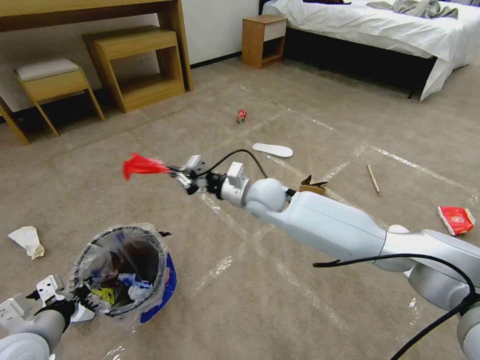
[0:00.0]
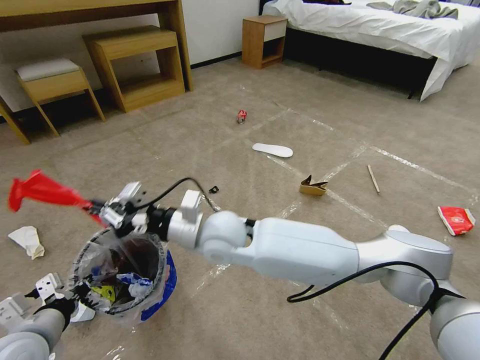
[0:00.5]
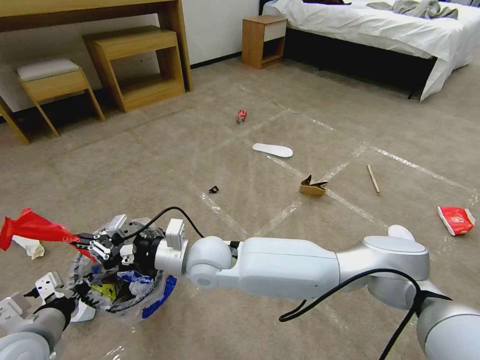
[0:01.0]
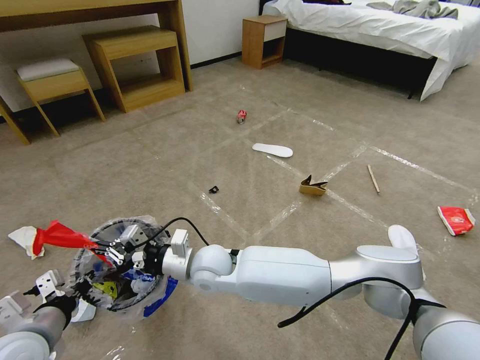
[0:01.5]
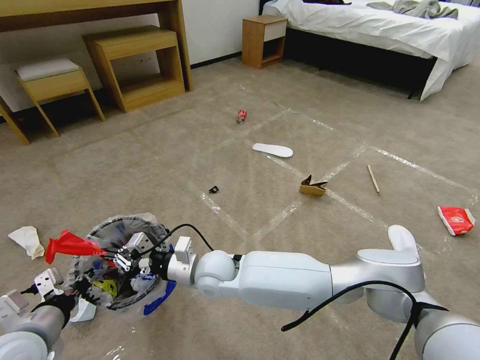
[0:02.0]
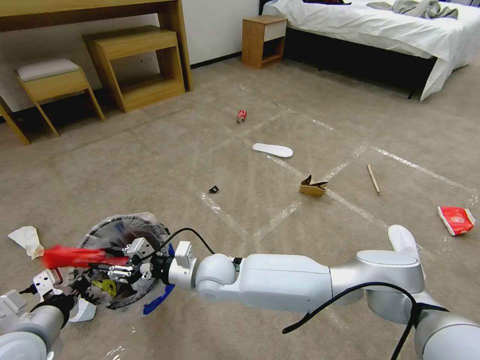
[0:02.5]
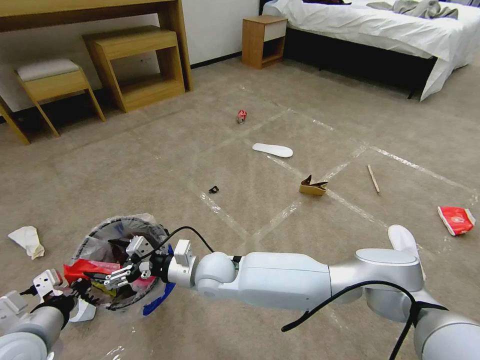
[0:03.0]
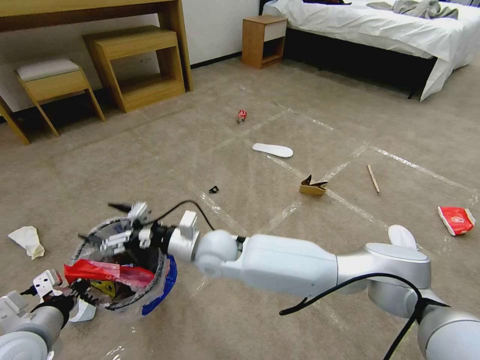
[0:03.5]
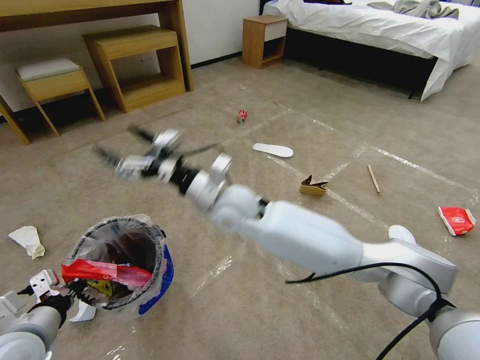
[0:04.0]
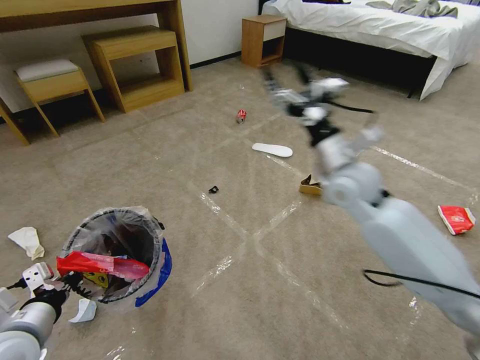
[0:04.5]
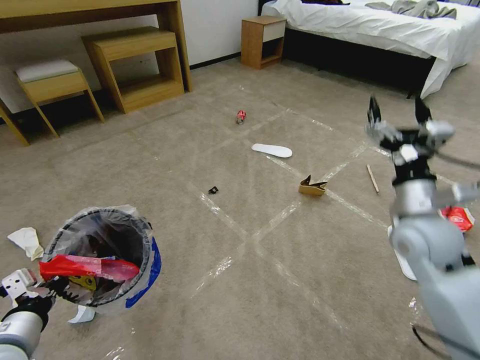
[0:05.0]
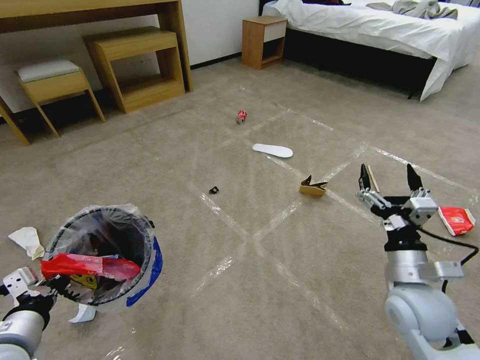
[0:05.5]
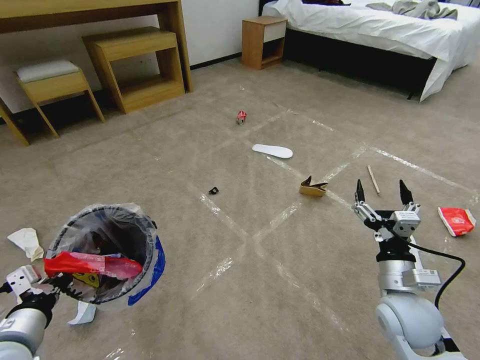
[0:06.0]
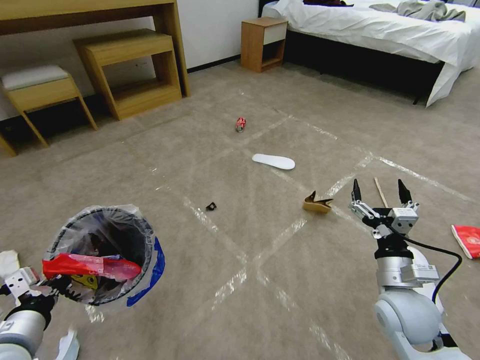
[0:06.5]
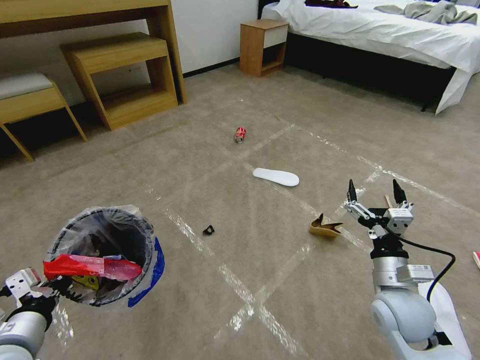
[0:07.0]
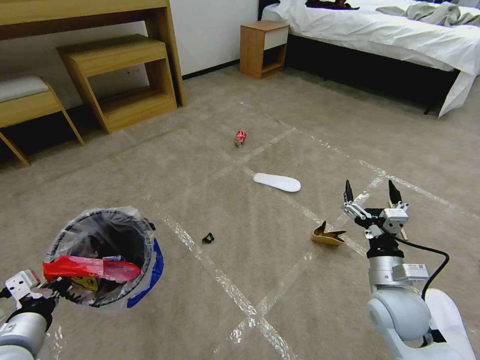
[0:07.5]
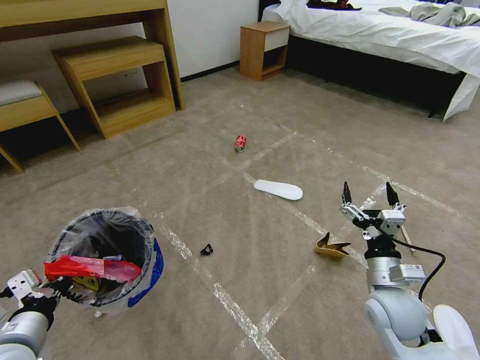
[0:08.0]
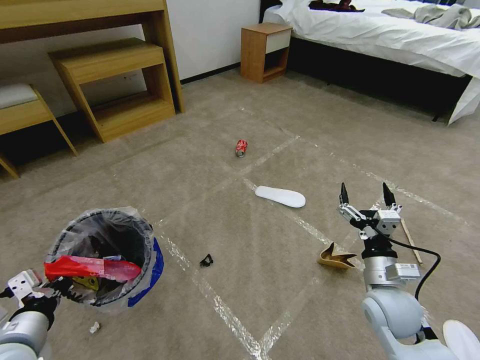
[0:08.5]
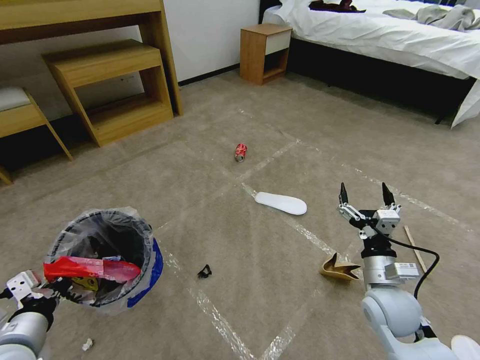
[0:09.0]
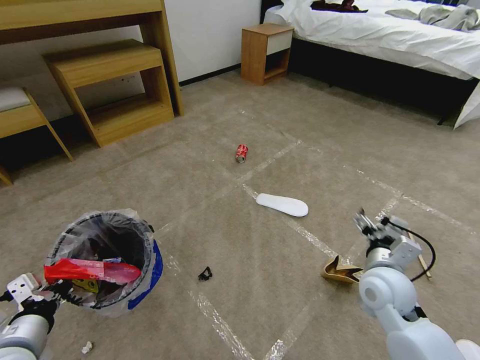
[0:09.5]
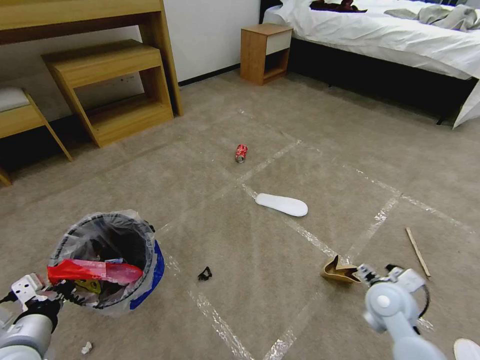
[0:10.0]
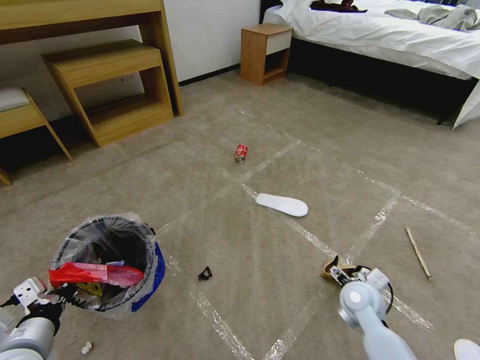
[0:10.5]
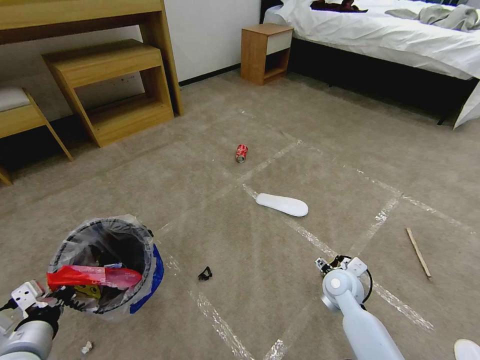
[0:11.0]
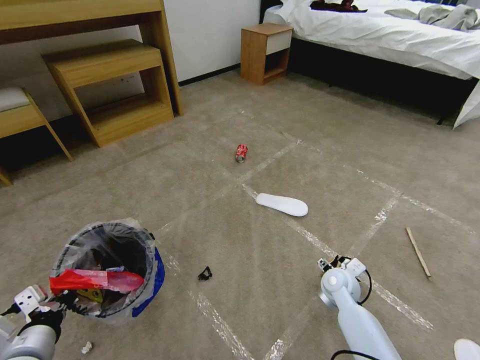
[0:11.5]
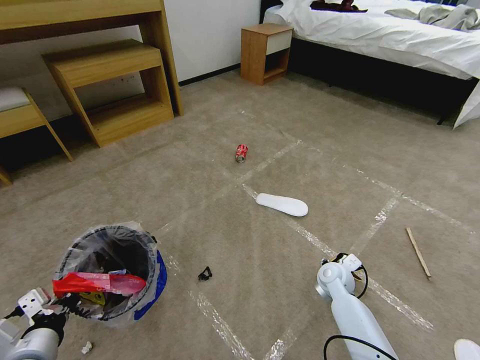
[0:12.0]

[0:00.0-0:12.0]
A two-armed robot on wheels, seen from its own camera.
Task of the whole recording: Pick up the trash bin and place the garbage on the floor into it.
0:00.0 to 0:02.0: The right gripper is displaced backward, downward and to the left by roughly 20 cm.
0:02.0 to 0:04.0: The right gripper is displaced upward and forward by about 15 cm, and opens its fingers.
0:04.0 to 0:06.0: The right gripper shifts roughly 35 cm to the right and backward.
0:10.0 to 0:12.0: The right gripper is displaced forward, downward and to the left by some 15 cm.

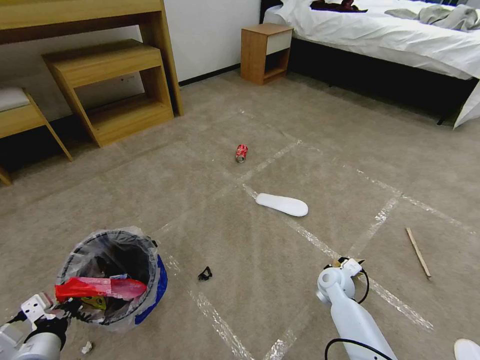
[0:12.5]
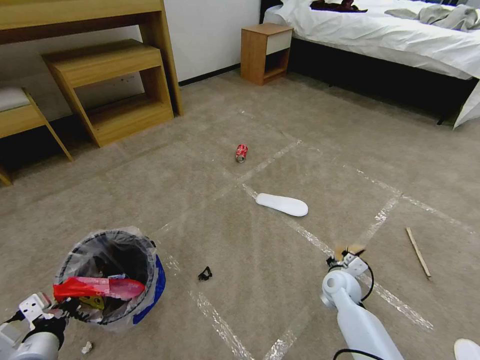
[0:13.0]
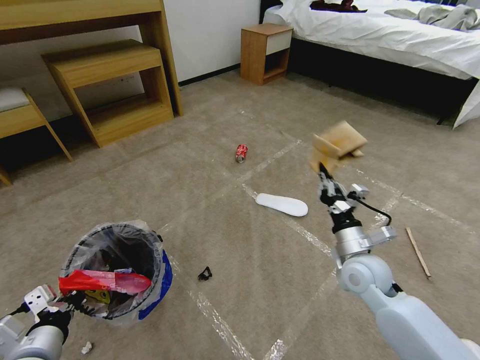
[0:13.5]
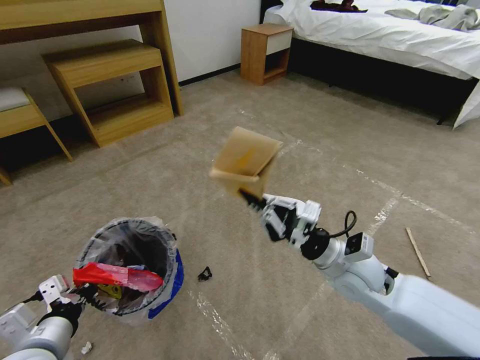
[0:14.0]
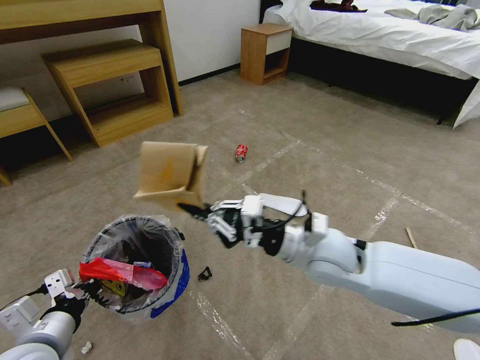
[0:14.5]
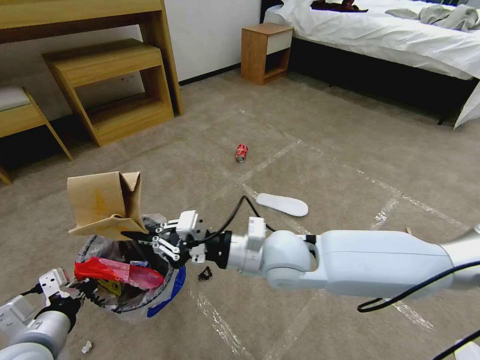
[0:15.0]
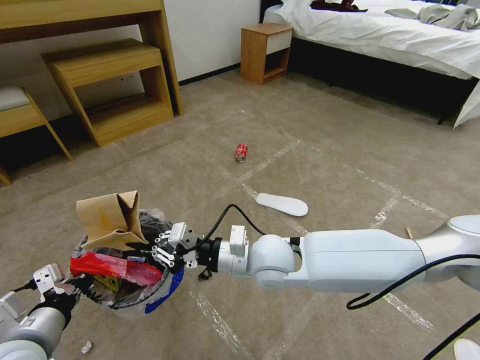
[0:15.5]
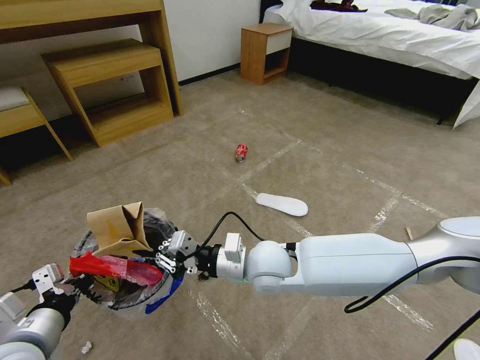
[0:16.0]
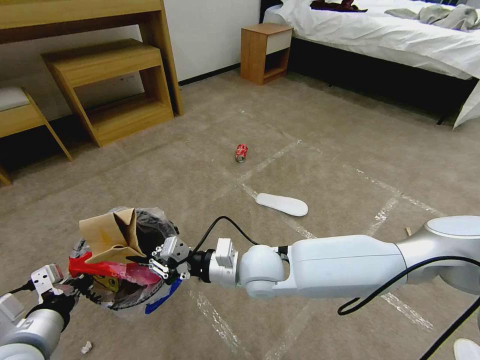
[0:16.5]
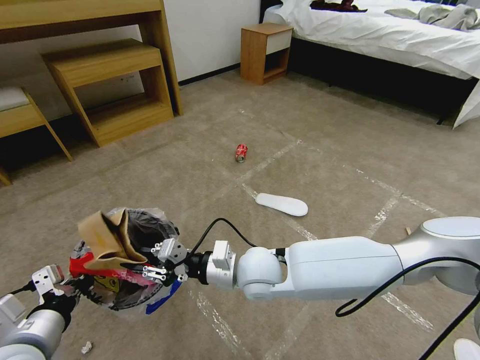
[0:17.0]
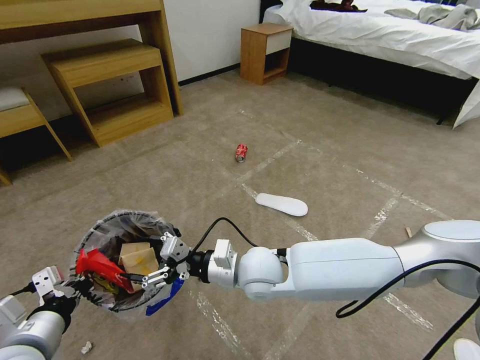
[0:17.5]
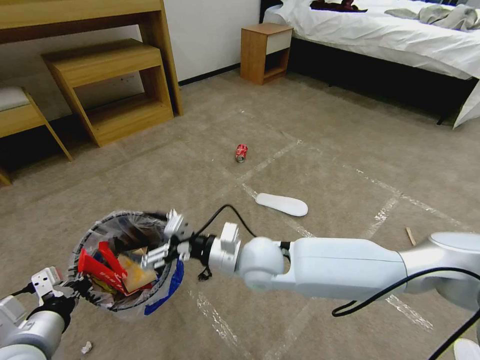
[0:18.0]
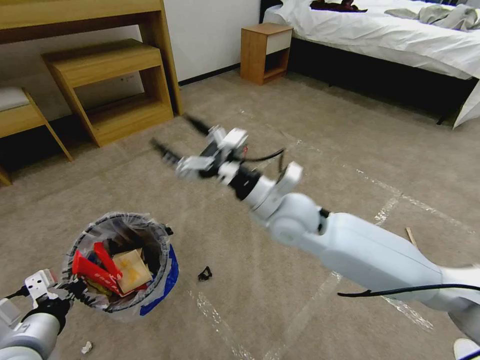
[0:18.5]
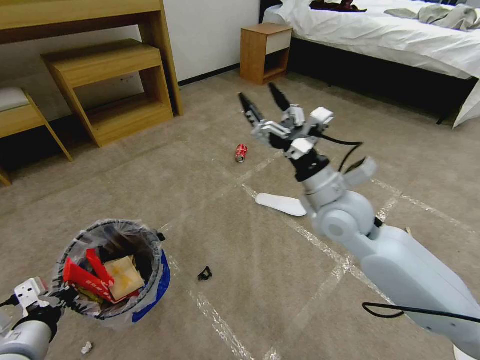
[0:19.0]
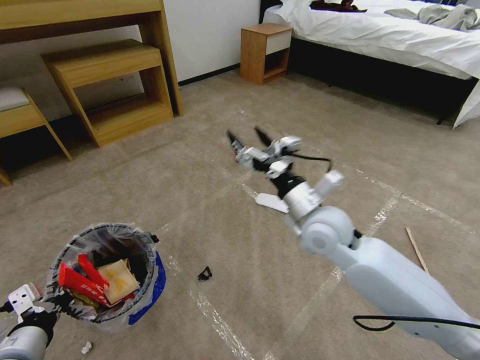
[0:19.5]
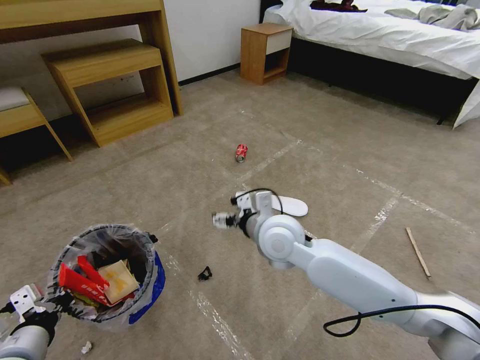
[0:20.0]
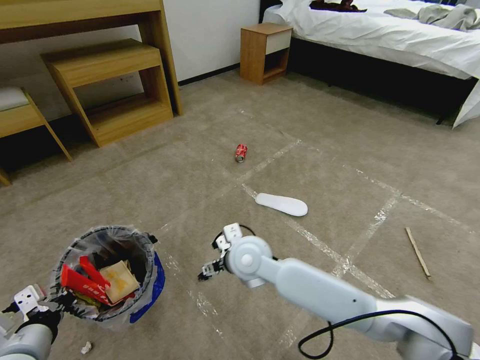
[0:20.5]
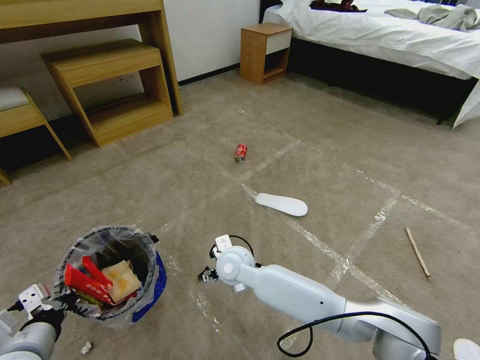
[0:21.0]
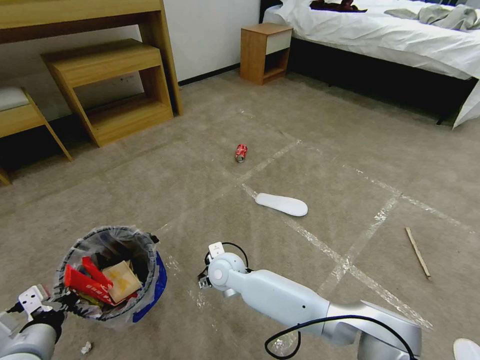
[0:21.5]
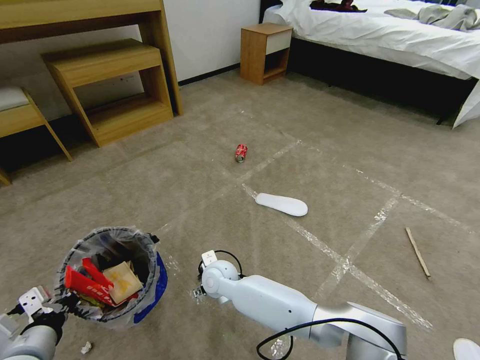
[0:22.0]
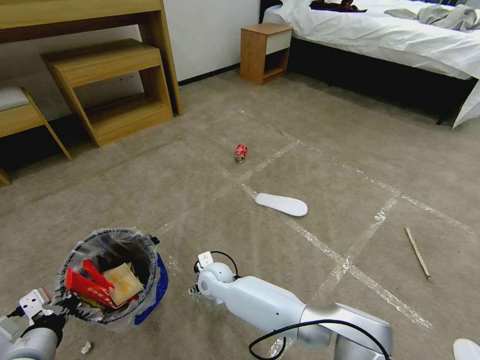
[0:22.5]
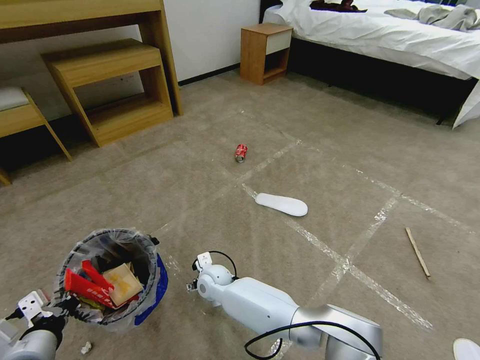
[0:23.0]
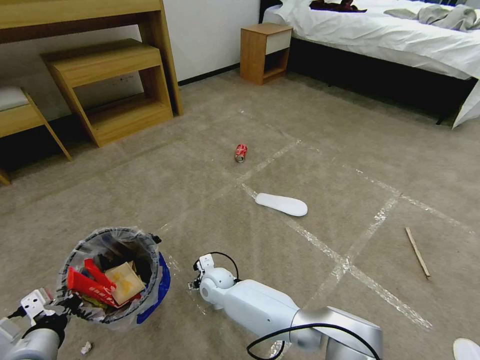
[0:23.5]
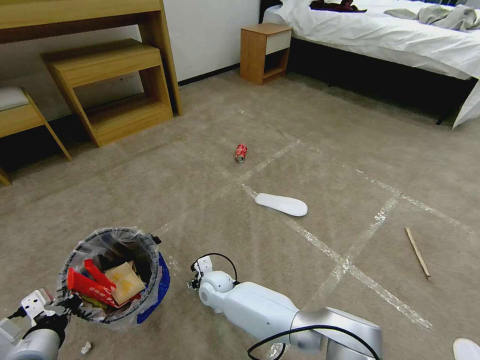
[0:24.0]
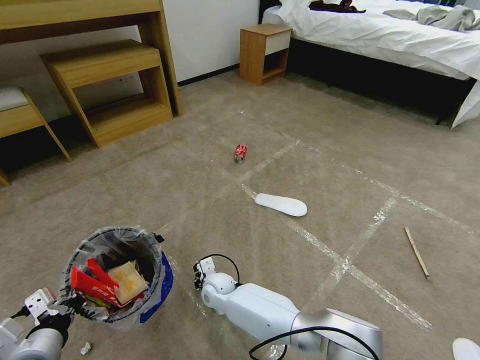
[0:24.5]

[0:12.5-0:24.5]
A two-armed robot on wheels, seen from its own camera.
Task of the whole recording: Pick up the trash bin and place the garbage on the floor into it.
0:12.5 to 0:14.5: The left gripper changes place by roughly 5 cm. The right gripper shifts approximately 30 cm upward and to the left.
0:14.5 to 0:16.5: The right gripper moves to the left and downward, roughly 15 cm.
0:16.5 to 0:18.5: The right gripper goes about 10 cm upward, forward and to the right, and opens its fingers.
0:18.5 to 0:20.5: The right gripper heads downward and to the left, covering roughly 15 cm.
0:20.5 to 0:22.5: The right gripper moves downward and to the left, roughly 20 cm.
0:22.5 to 0:24.5: The right gripper heads downward, covering roughly 5 cm, and closes up.

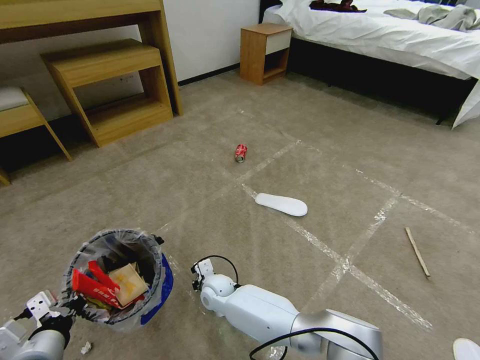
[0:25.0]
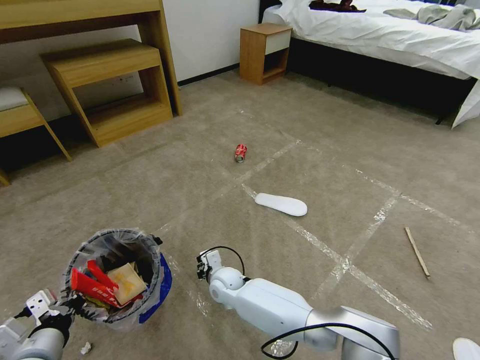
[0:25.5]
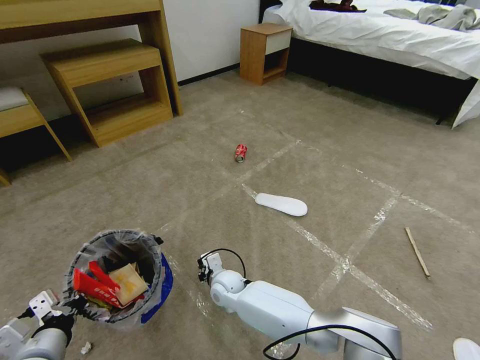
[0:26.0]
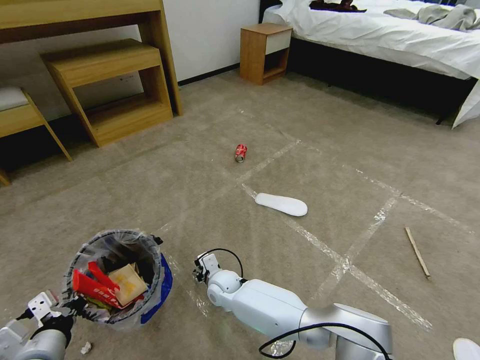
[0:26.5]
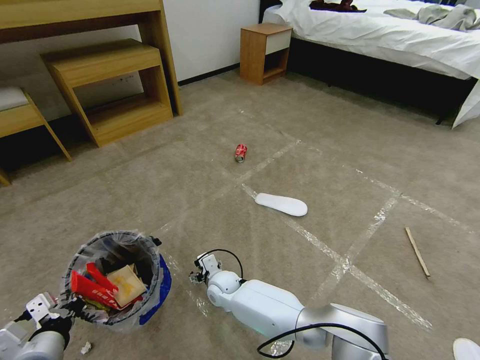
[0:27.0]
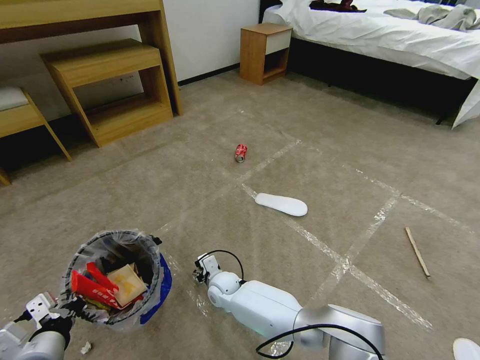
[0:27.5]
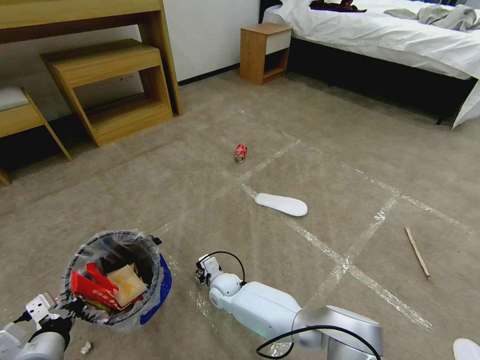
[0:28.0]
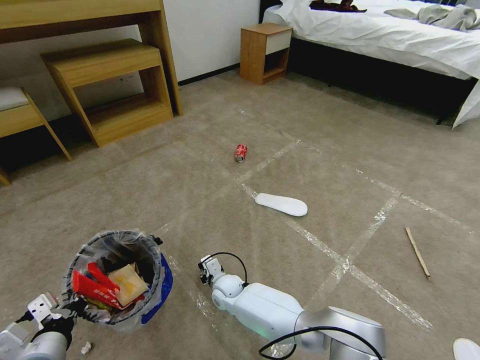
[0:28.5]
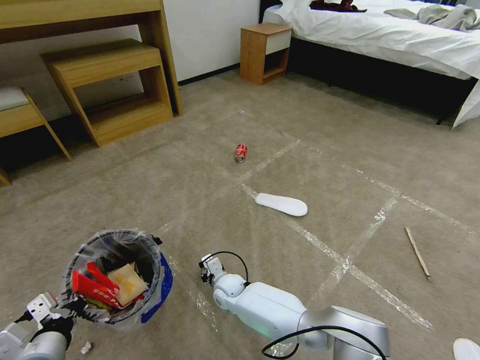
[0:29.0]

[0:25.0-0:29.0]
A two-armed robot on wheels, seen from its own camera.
Task of the whole recording: Pick up the trash bin and place the garbage on the floor into it.
0:25.0 to 0:27.0: The right gripper opens up.
0:27.0 to 0:29.0: The right gripper closes its fingers.
